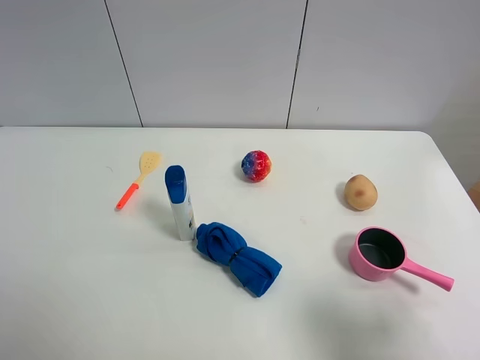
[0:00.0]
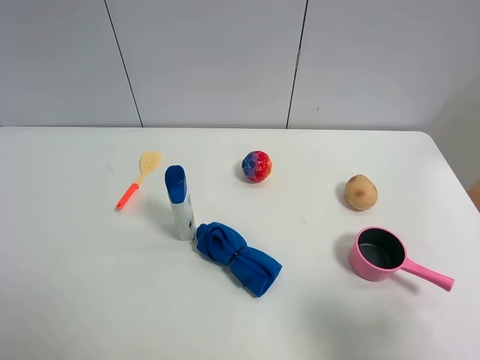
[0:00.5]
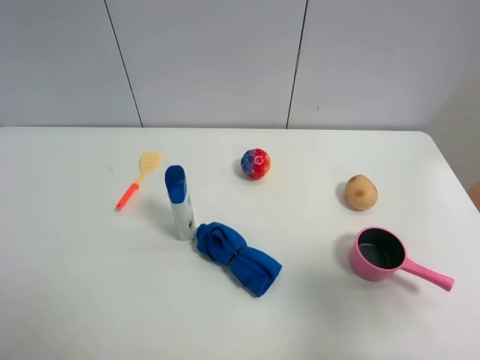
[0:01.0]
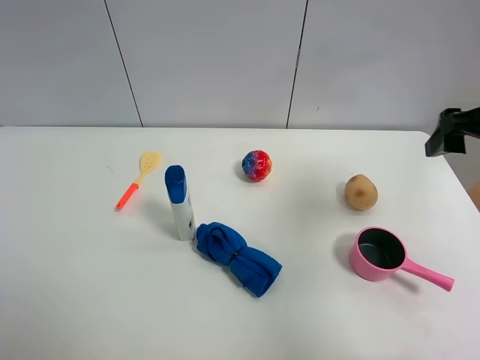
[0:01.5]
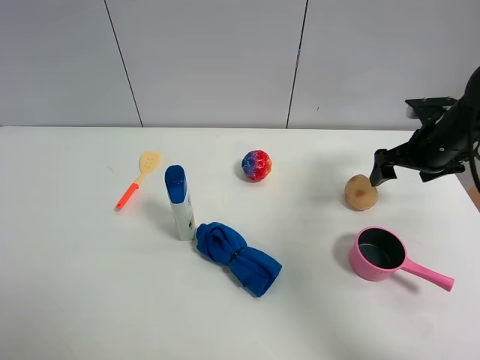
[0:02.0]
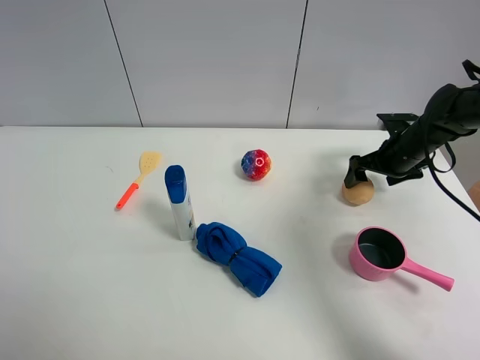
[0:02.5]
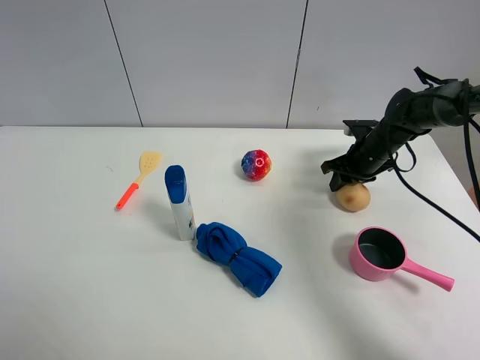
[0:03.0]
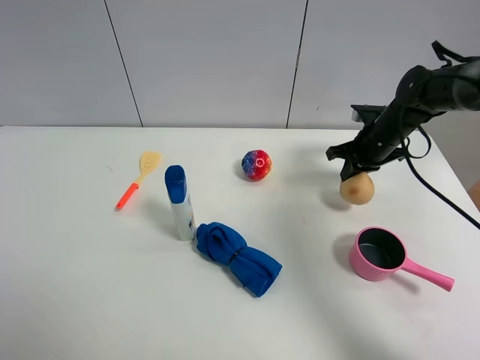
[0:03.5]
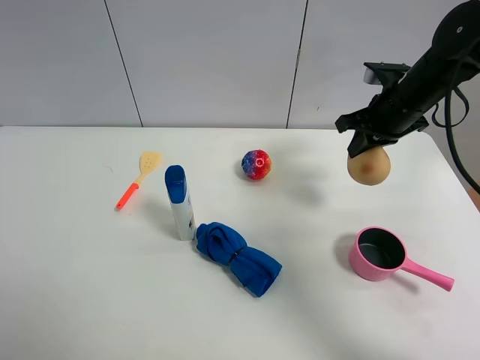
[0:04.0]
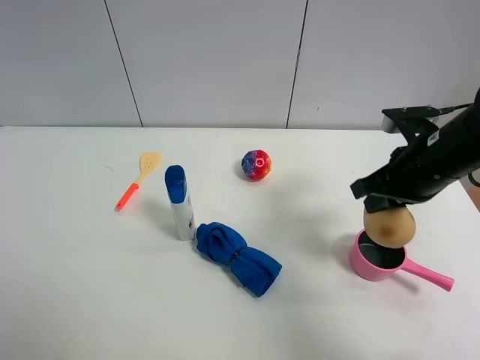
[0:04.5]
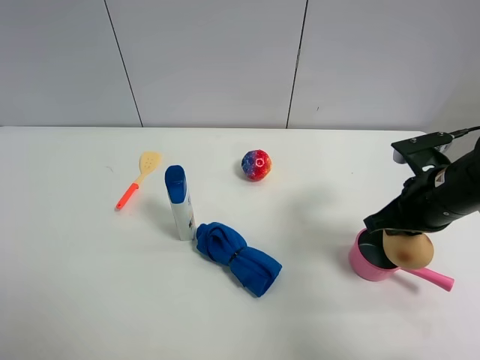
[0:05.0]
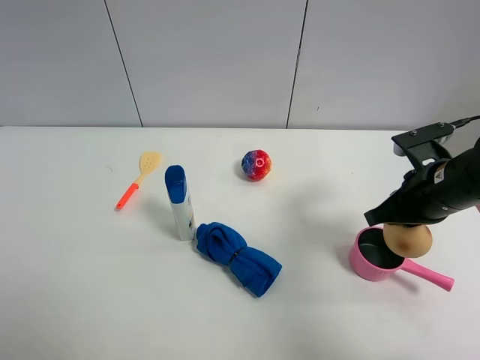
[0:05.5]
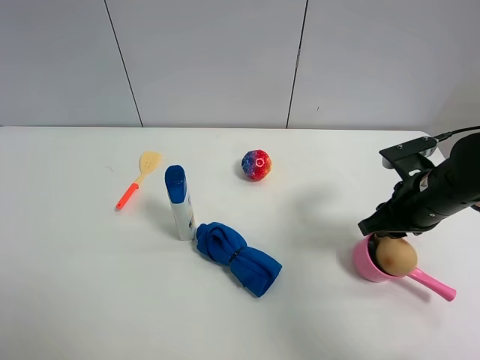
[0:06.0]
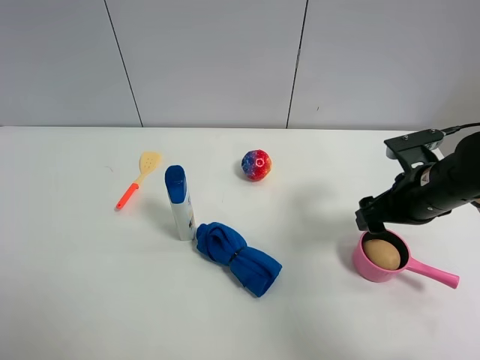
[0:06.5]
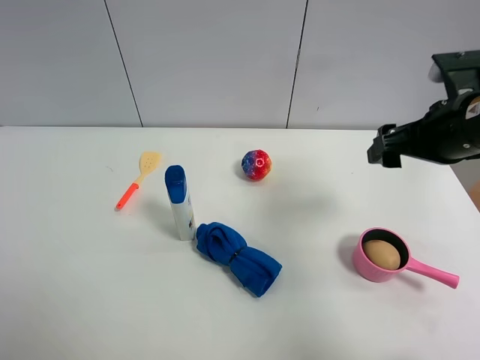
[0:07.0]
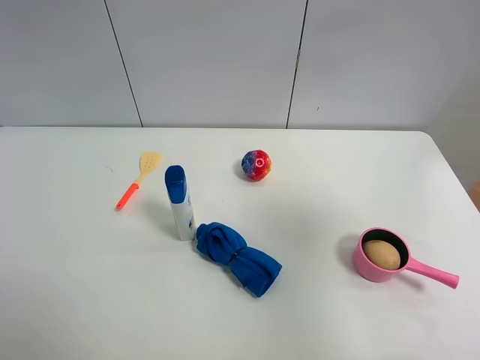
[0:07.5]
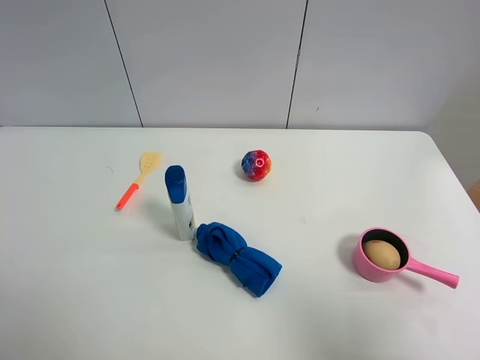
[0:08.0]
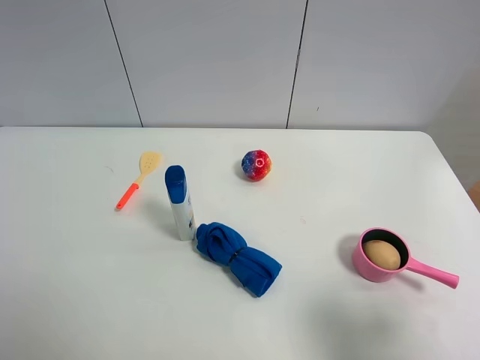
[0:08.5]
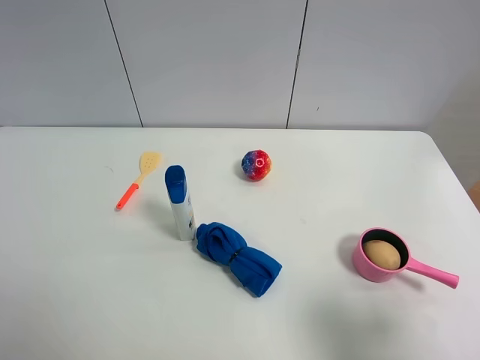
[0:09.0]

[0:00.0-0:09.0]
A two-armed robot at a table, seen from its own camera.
Task of the whole recording: the gripper move the object.
Step, 0:00.0 to 0:03.0: Grasp the egg yolk pastry with the right gripper.
Step, 0:03.5 to 0:06.0: Place the egg yolk pastry into the pink pot with the right gripper.
0:00.0 to 0:02.0: The right gripper goes about 35 cm forward.
0:02.0 to 0:04.5: The right gripper heads backward, to the left and upward, covering about 15 cm, and closes.
0:04.5 to 0:07.0: The right gripper travels upward by some 5 cm, and opens up.
0:07.0 to 0:09.0: The right gripper shifts about 25 cm backward.

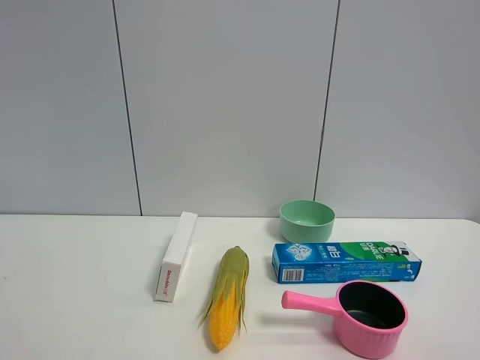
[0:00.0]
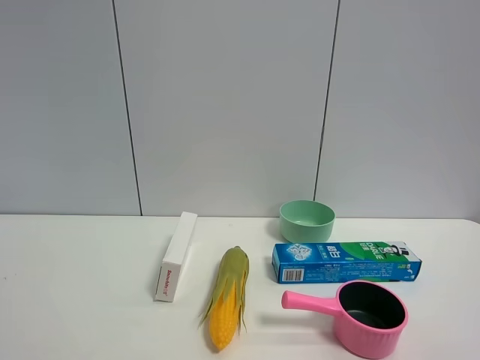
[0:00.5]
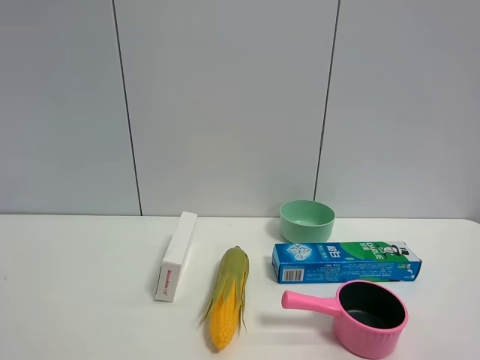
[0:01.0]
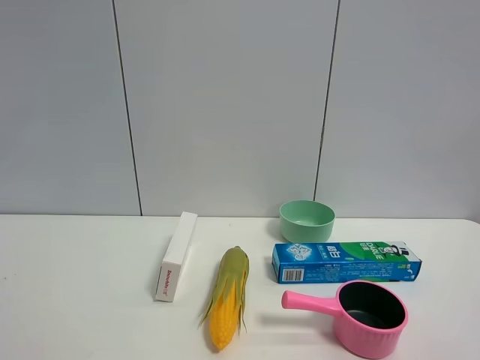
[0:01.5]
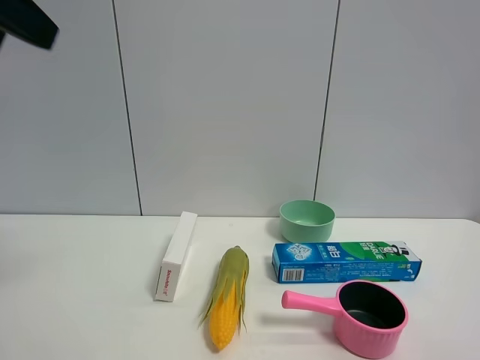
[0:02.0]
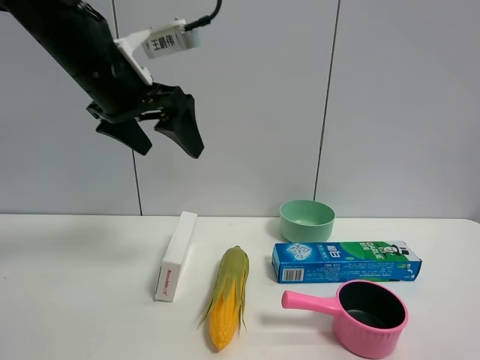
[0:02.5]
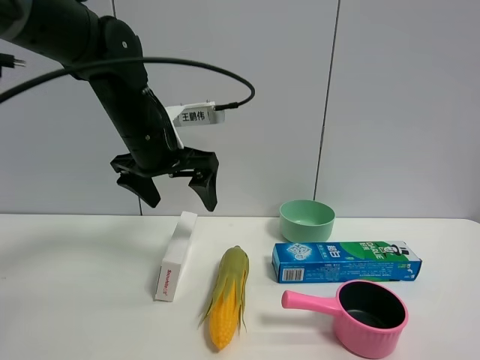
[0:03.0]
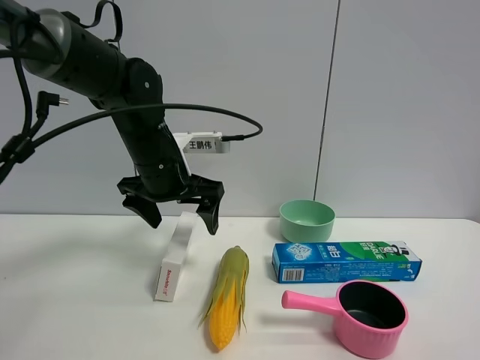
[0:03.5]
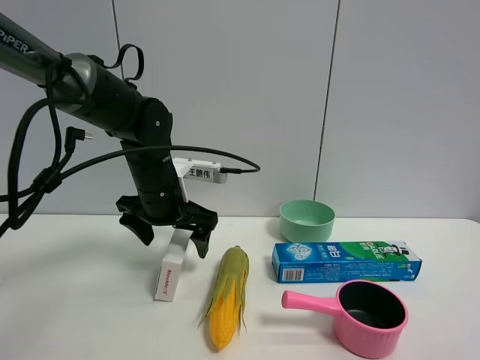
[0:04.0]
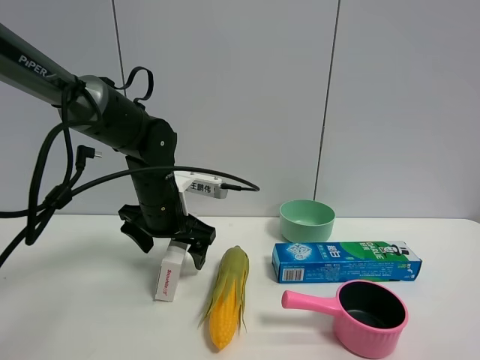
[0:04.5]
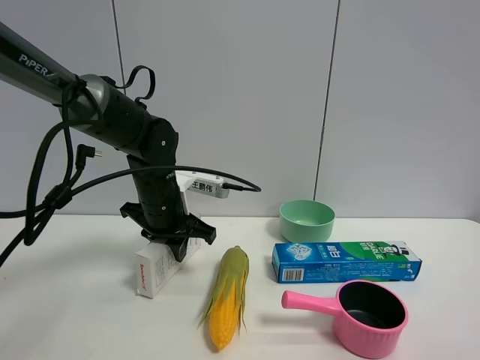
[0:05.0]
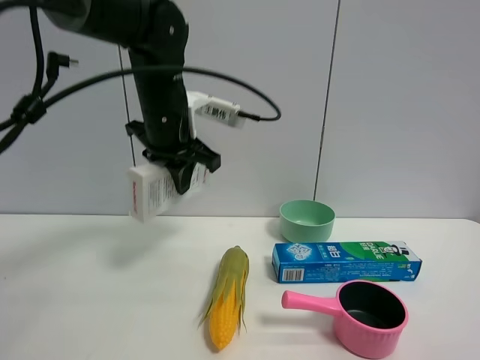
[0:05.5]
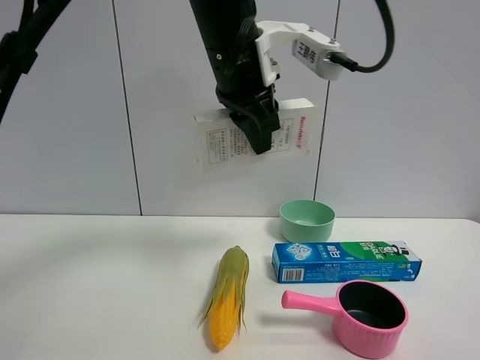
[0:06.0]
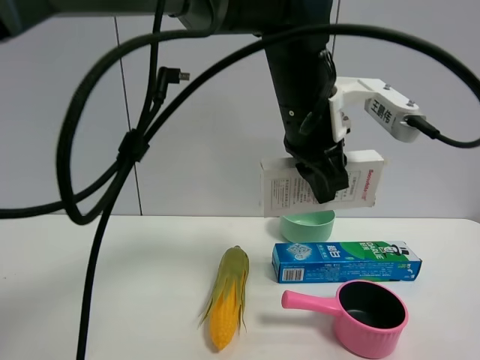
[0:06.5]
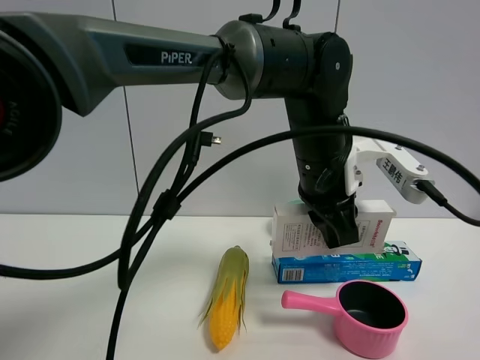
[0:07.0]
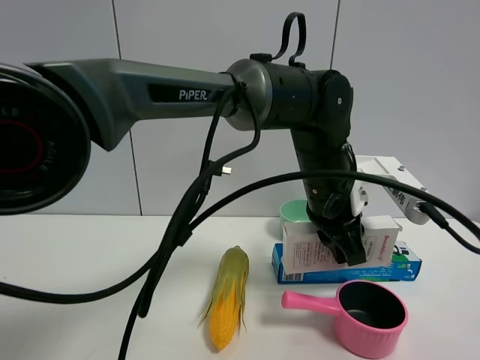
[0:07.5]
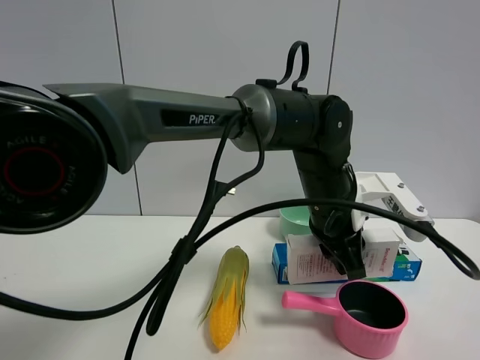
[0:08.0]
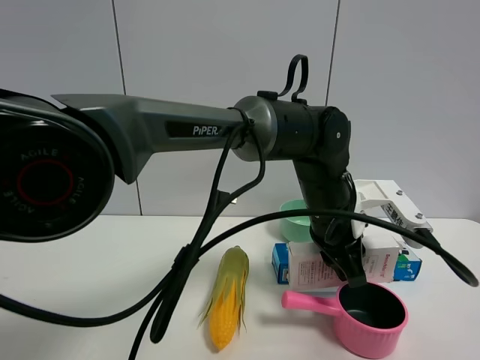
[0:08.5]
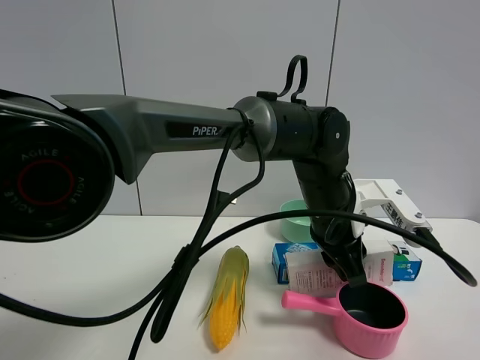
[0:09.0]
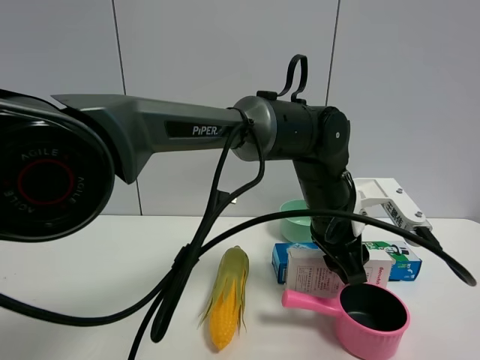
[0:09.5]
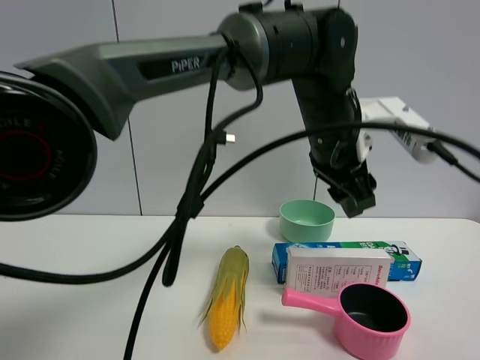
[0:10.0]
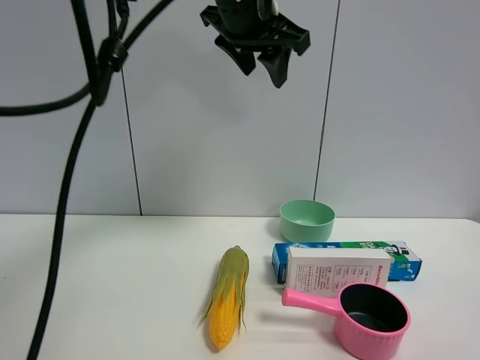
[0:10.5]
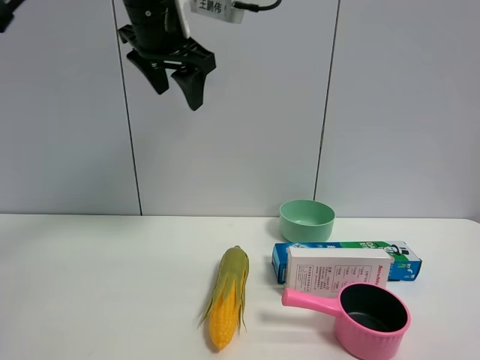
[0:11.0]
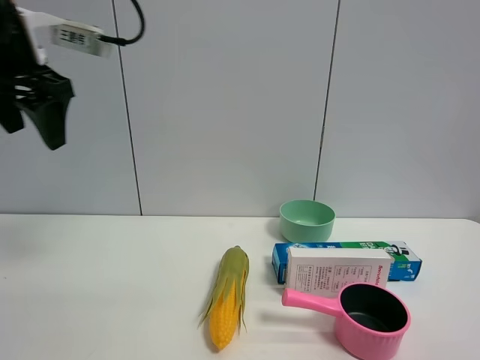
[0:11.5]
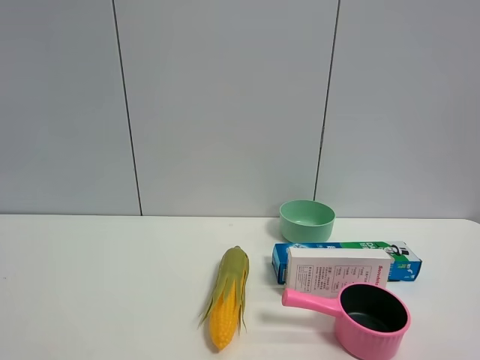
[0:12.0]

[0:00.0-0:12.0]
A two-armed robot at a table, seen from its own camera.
Task of the whole recording: the gripper move the object.
Step, 0:00.0 to 0:04.5: Grasp the USB box with the left gripper.
Step, 0:05.0 to 0:09.5: Place the USB box on the table with the left gripper.
0:00.0 to 0:02.0: The left gripper shifts about 25 cm forward and upward.
0:02.0 to 0:04.0: The left gripper goes about 35 cm downward, forward and to the right.
0:04.0 to 0:06.0: The left gripper moves upward and to the right, about 20 cm, and closes.
0:06.0 to 0:08.0: The left gripper goes about 20 cm downward and to the right.
0:08.0 to 0:10.0: The left gripper goes approximately 10 cm upward, and opens up.
0:10.0 to 0:12.0: The left gripper travels to the left and backward by approximately 50 cm.

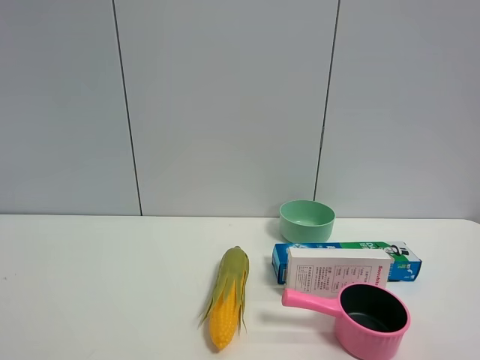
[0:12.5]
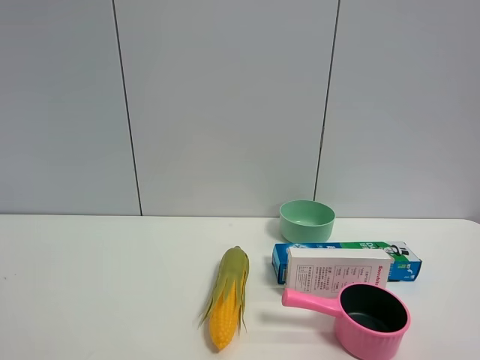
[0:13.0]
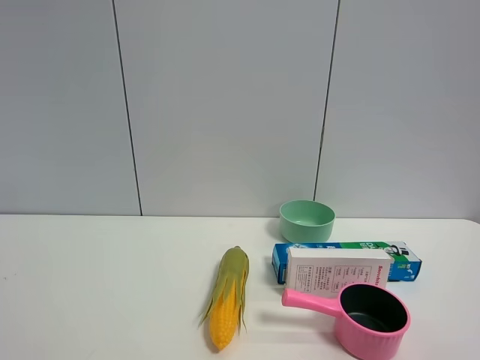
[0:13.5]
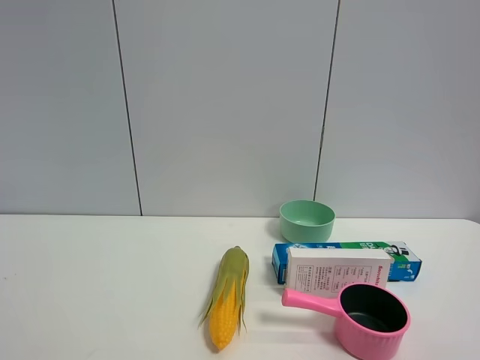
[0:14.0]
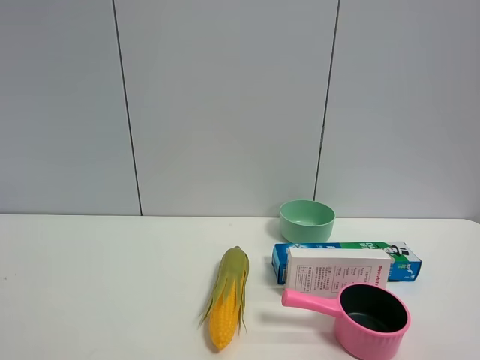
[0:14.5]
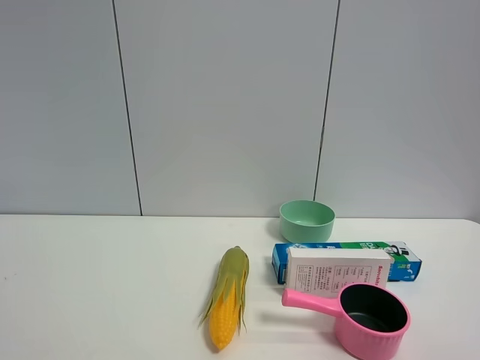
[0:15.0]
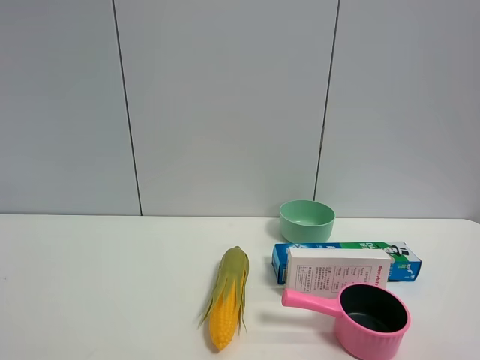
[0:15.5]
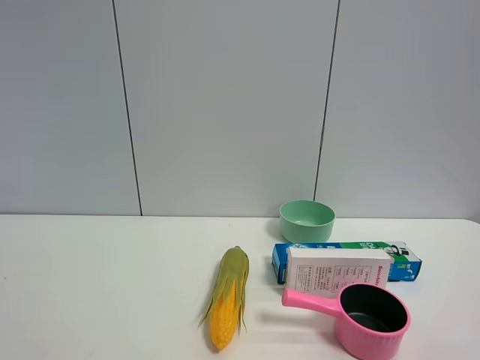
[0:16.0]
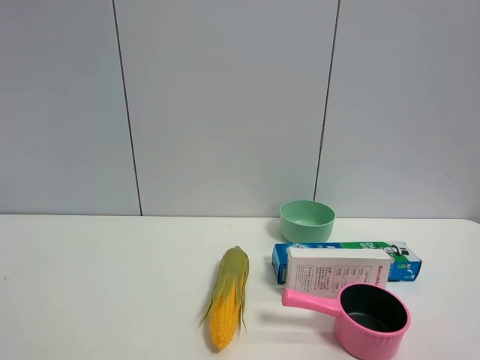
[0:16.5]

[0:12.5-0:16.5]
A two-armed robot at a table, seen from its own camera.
Task of the whole recording: the gripper move the object.
0:14.5 to 0:16.5: Both grippers stay about where they are.
